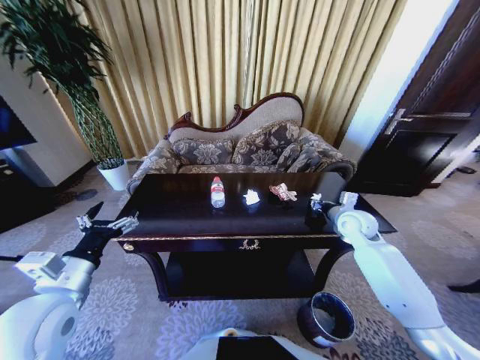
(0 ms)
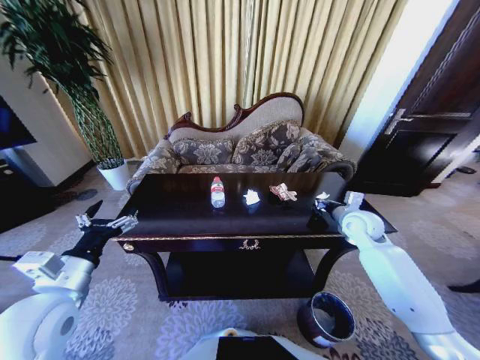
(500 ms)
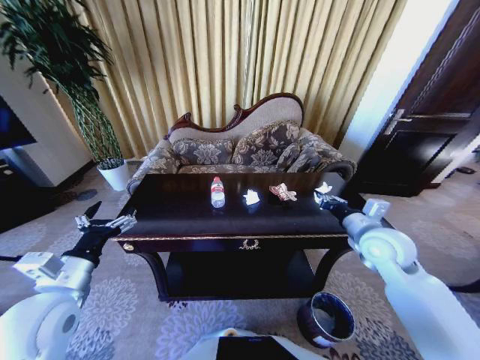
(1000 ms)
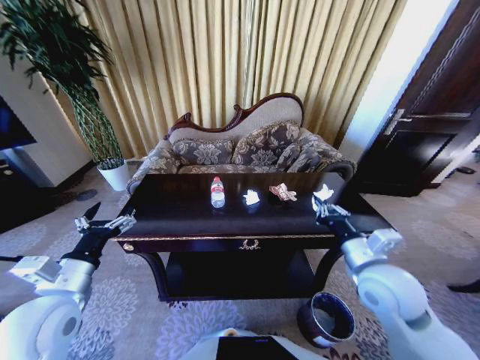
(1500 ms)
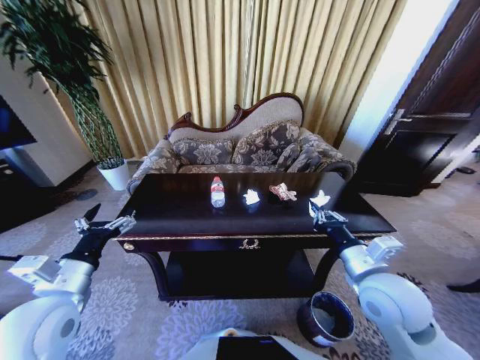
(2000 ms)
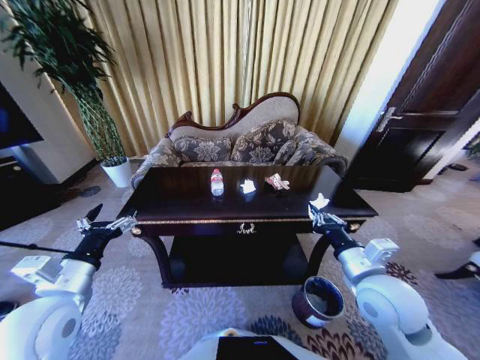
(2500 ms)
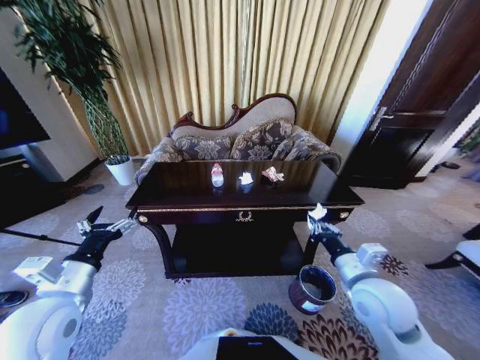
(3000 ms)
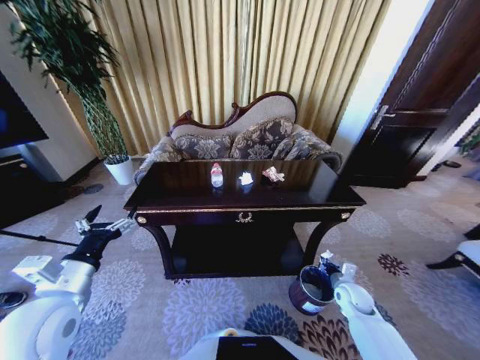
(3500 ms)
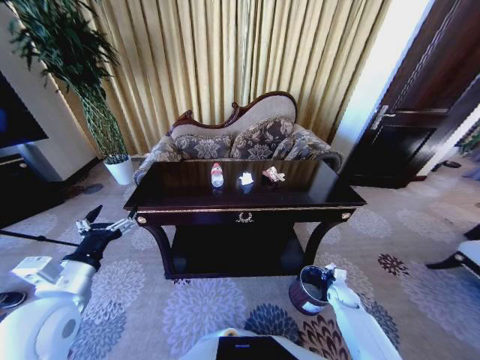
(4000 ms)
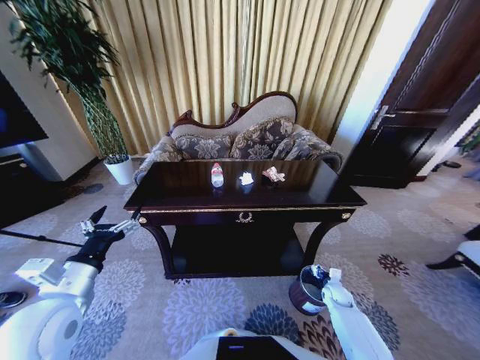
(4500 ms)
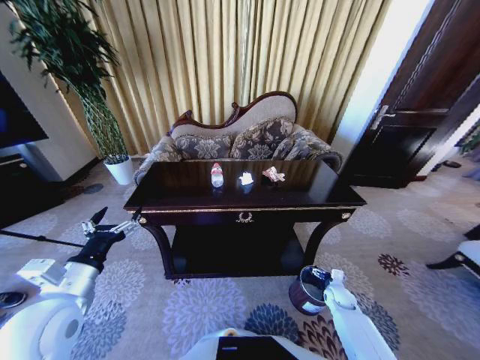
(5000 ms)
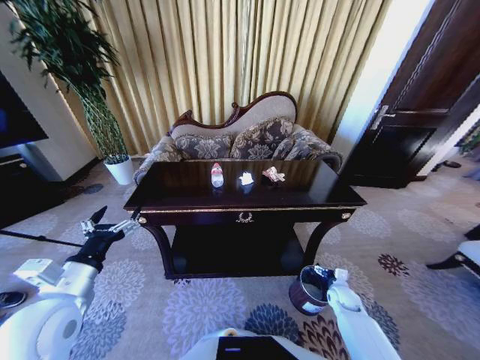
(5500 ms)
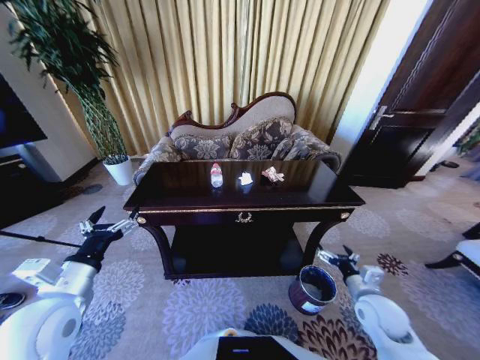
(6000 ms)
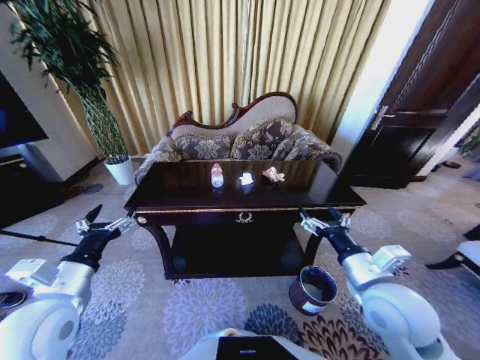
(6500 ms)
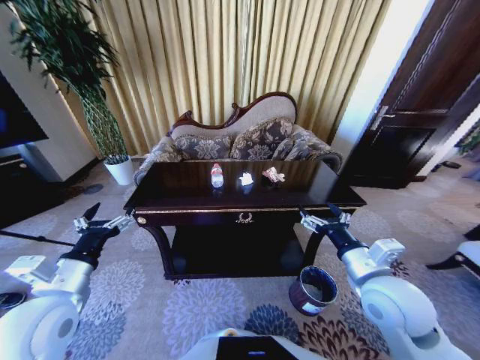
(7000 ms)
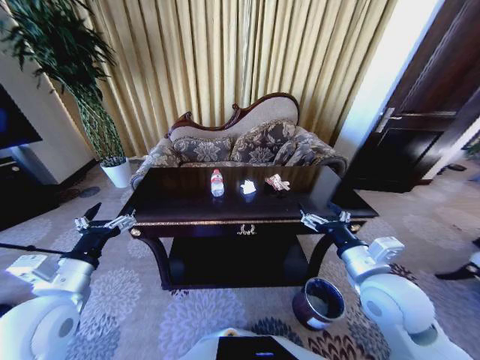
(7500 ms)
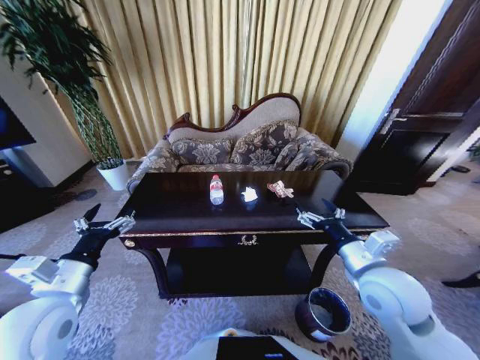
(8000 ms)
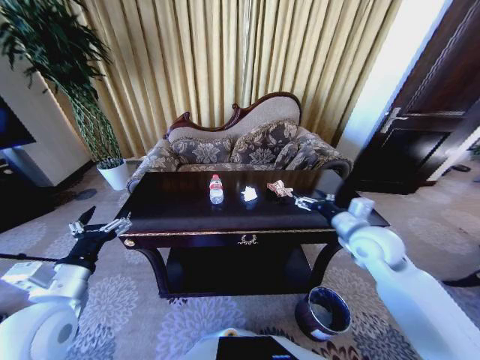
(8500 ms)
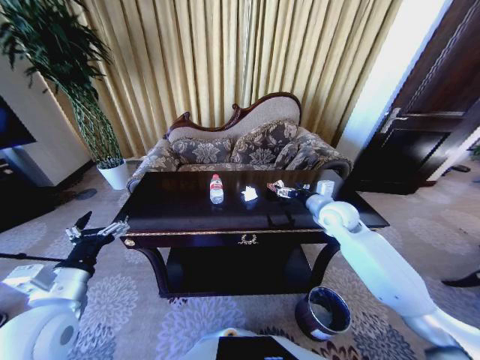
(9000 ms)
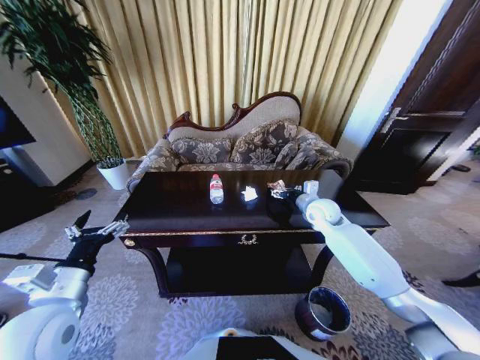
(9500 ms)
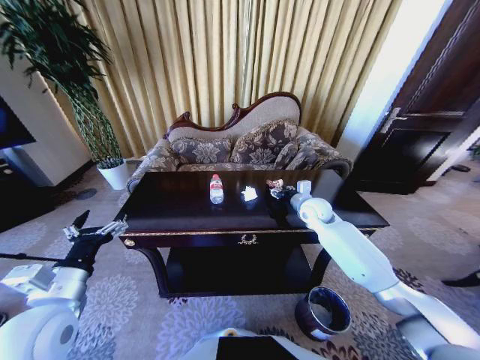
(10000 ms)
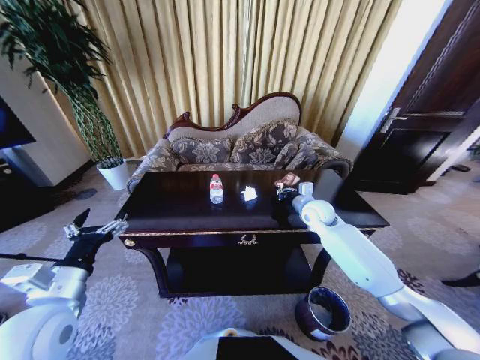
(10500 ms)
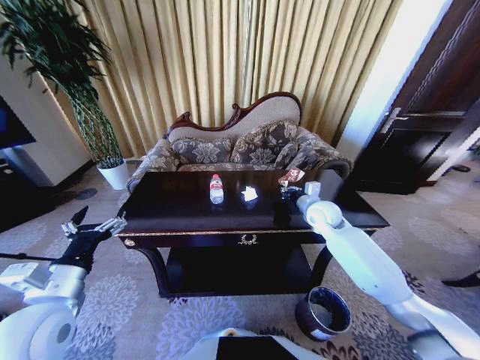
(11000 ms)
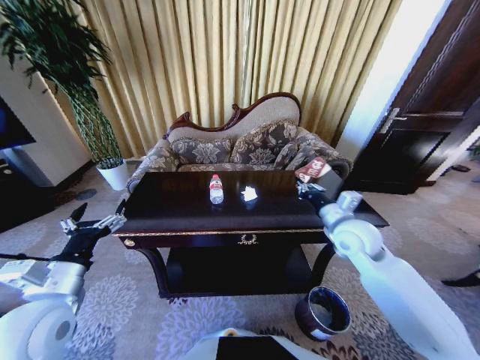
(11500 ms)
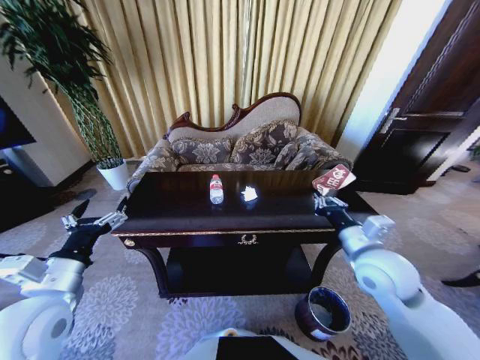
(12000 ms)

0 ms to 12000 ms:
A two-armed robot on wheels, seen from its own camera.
Task of the whole recording: Move to the front of the table and place the trash on the table into the trash bin.
0 ms to 2000 ms: The right gripper is displaced backward and to the left by some 25 cm.
2000 ms to 4000 ms: The right gripper travels downward by about 35 cm.
4000 ms to 6000 ms: The right gripper travels upward and backward by about 20 cm, and opens up.
6000 ms to 8000 ms: The right gripper is displaced upward and to the left by about 20 cm.
8000 ms to 10000 ms: The right gripper goes roughly 25 cm forward, and closes.
10000 ms to 12000 ms: The right gripper heads backward, covering some 20 cm, and closes its fingers.

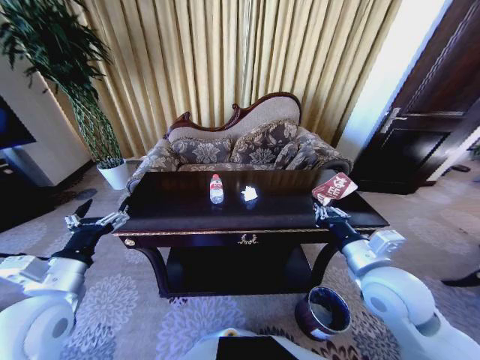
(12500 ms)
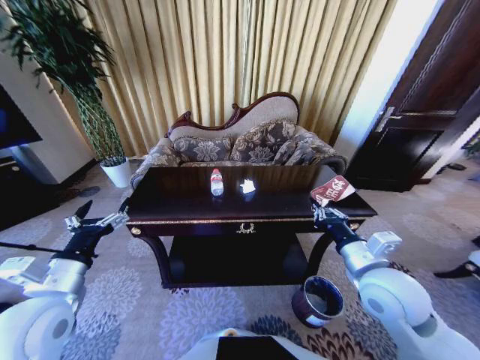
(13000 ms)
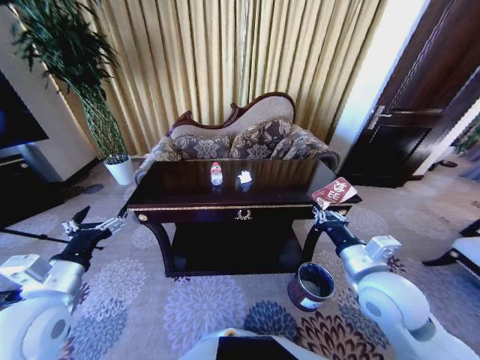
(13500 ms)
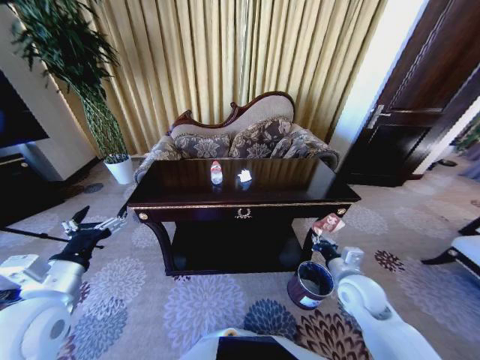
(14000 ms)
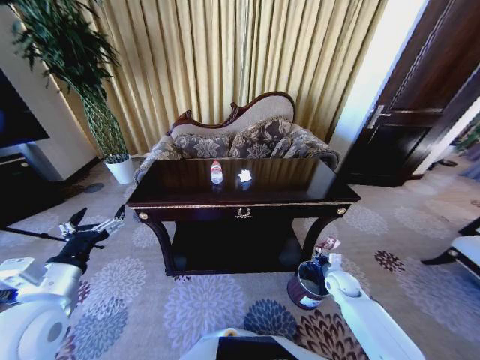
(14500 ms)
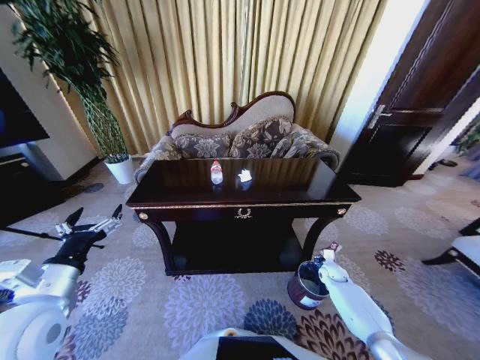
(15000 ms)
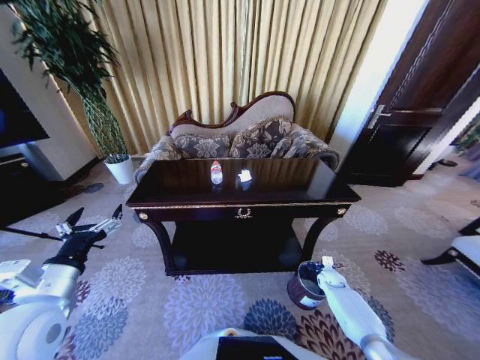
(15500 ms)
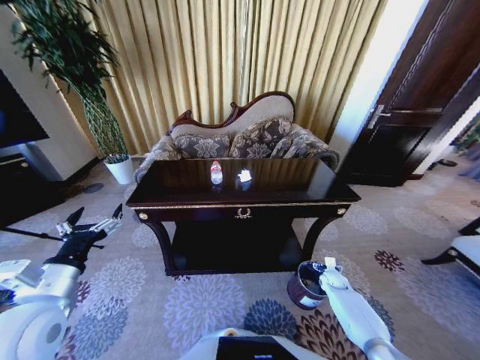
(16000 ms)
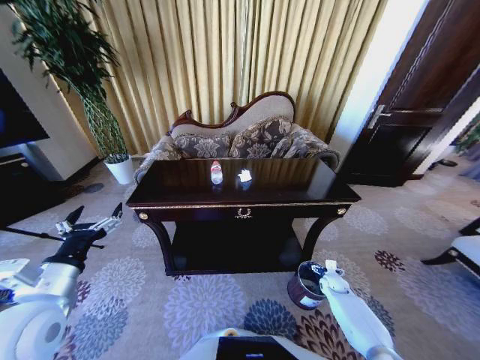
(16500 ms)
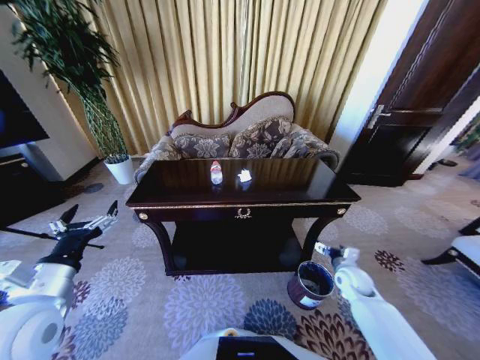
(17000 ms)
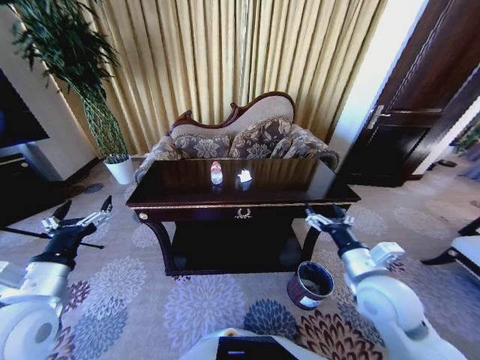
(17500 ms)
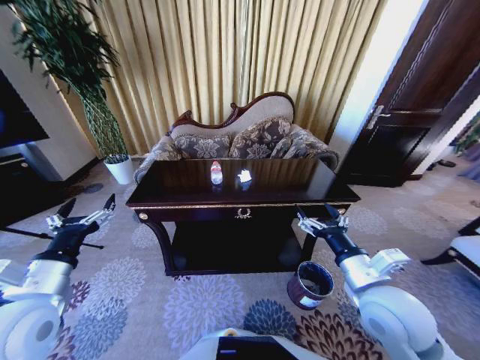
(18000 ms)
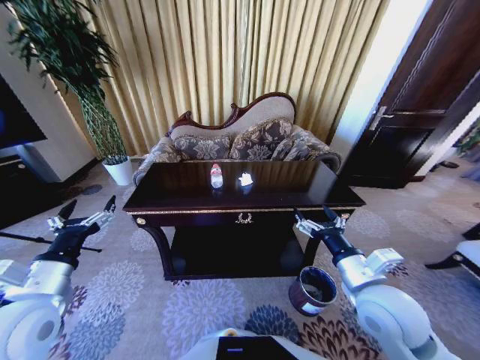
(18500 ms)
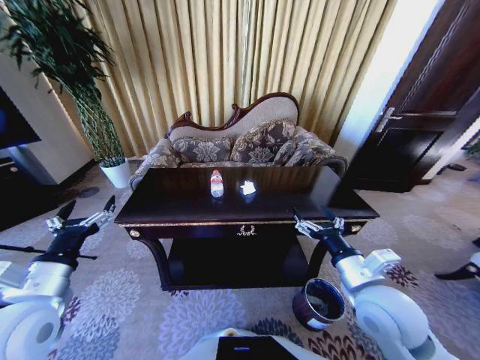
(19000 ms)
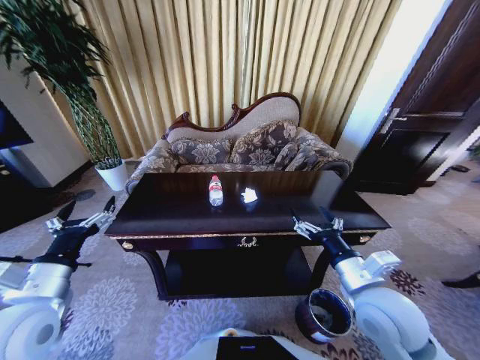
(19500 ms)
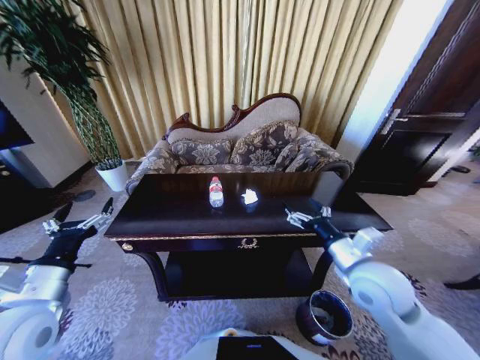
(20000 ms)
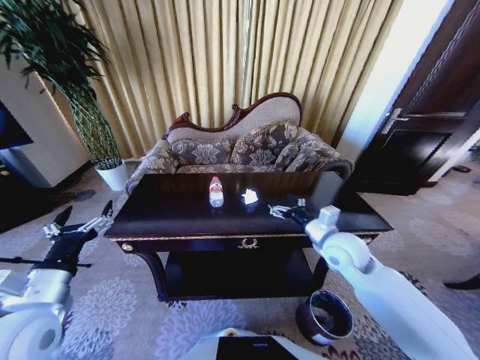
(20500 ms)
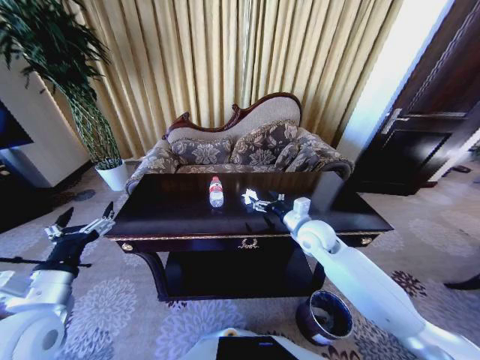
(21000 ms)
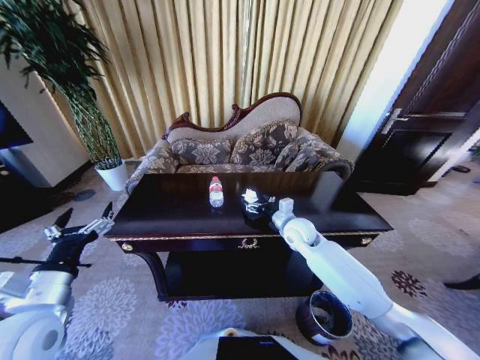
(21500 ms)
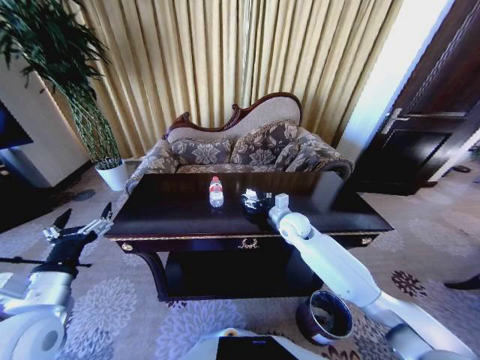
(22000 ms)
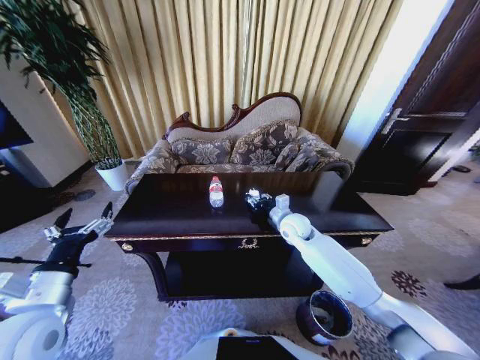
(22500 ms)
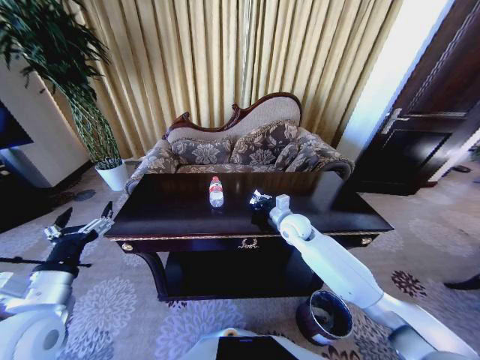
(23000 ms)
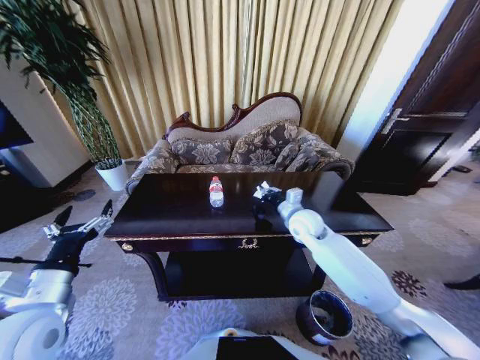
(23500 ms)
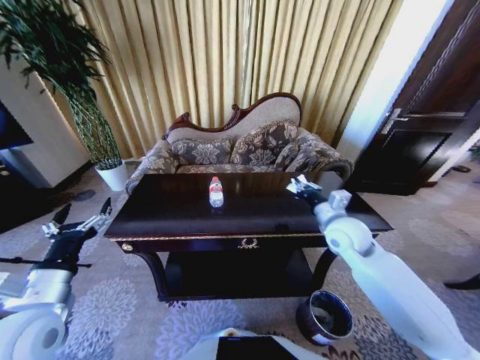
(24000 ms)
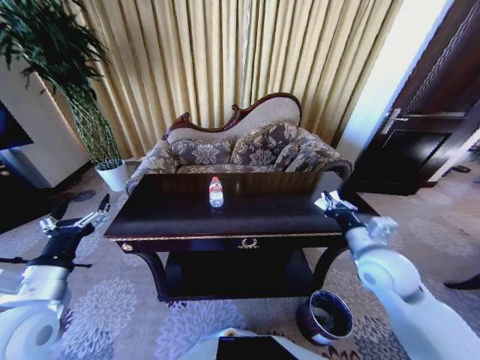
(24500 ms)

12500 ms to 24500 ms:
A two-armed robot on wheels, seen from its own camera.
Task of the whole recording: Move to the front of the table and place the trash on the table into the trash bin.
12500 ms to 14500 ms: The right gripper travels downward by some 25 cm.
14500 ms to 16500 ms: The right gripper is displaced downward by approximately 10 cm, and opens its fingers.
16500 ms to 18500 ms: The right gripper travels upward, backward and to the left by approximately 40 cm.
18500 ms to 20500 ms: The right gripper heads forward, covering about 15 cm.
20500 ms to 22500 ms: The right gripper goes roughly 15 cm forward, to the left and downward, and closes up.
22500 ms to 24500 ms: The right gripper moves backward, to the right and upward, approximately 25 cm, and closes.

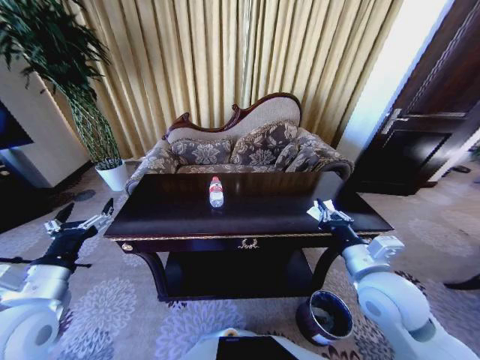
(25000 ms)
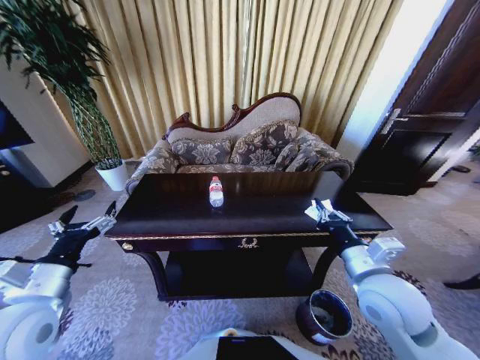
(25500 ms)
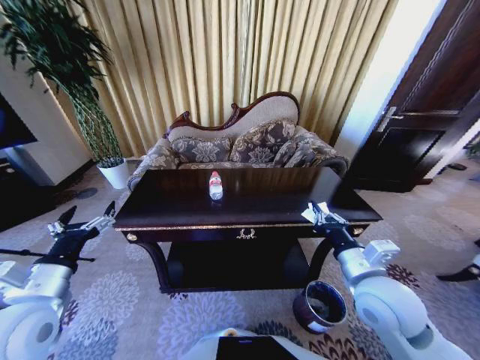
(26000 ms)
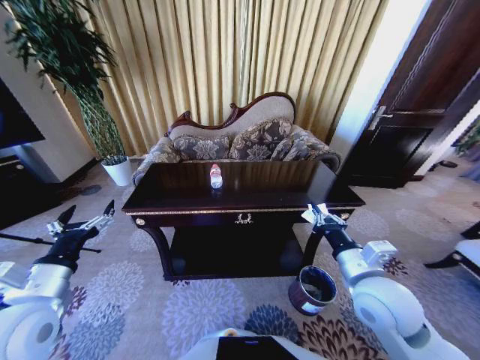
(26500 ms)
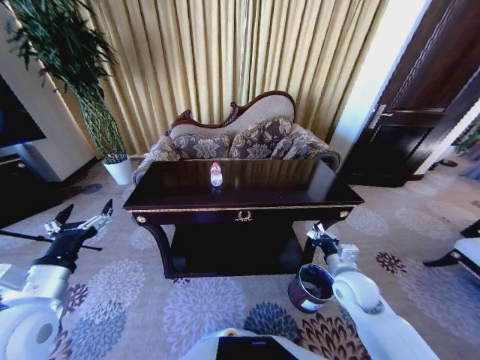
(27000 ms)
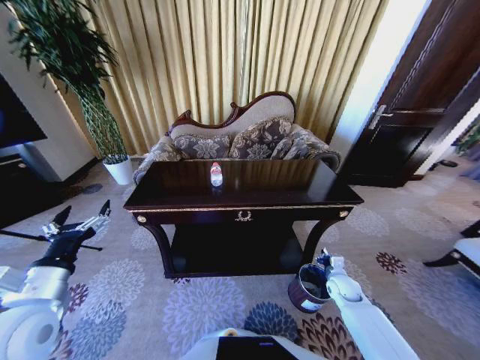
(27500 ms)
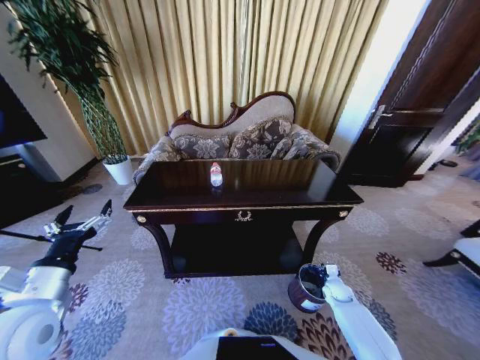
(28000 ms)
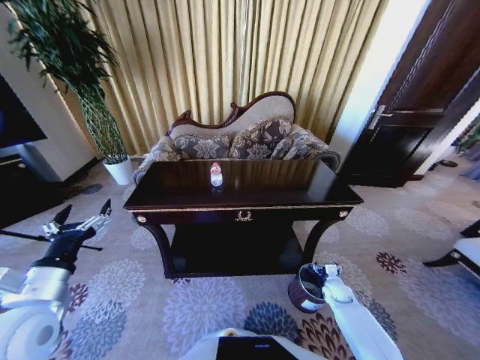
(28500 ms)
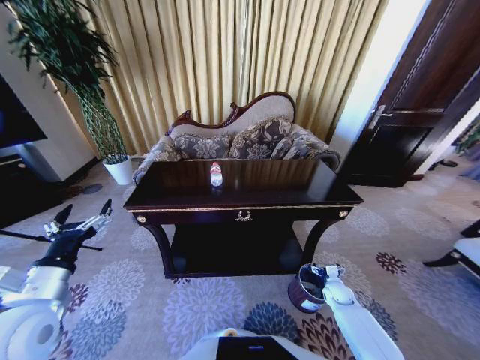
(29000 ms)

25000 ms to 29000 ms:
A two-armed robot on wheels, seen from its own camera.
Task of the whole recording: Move to the front of the table and place the trash on the table into the trash bin.
25000 ms to 27000 ms: The right gripper goes roughly 15 cm downward.
27000 ms to 29000 ms: The right gripper shifts approximately 20 cm downward, and opens up.
